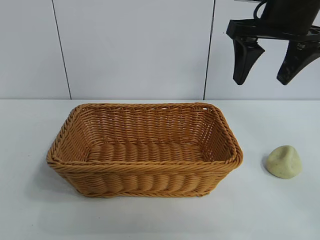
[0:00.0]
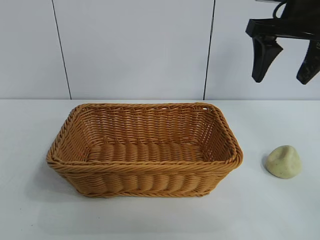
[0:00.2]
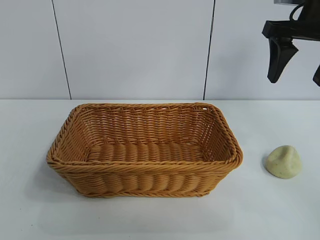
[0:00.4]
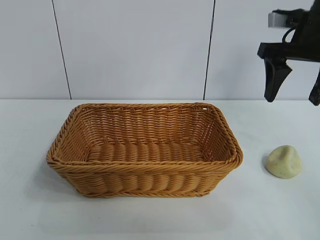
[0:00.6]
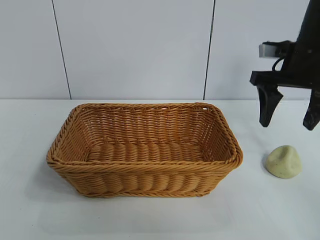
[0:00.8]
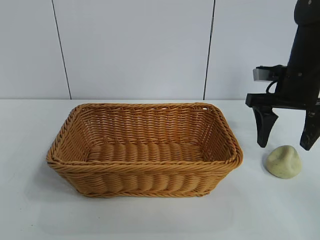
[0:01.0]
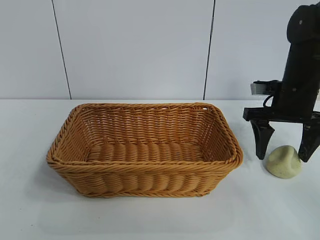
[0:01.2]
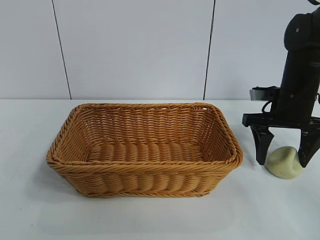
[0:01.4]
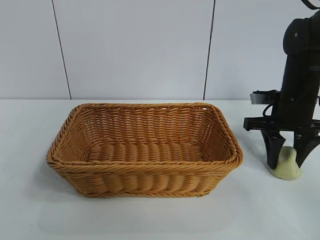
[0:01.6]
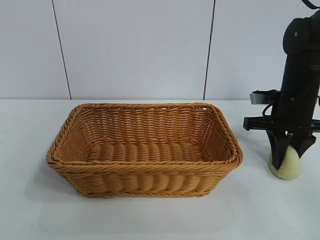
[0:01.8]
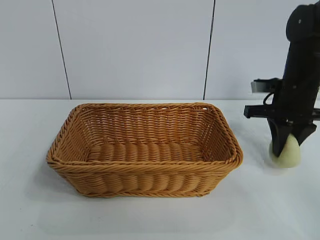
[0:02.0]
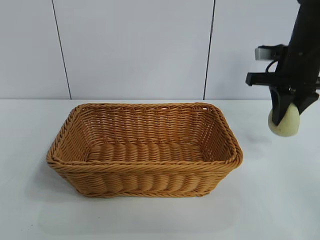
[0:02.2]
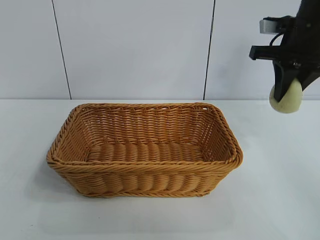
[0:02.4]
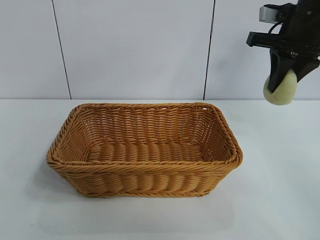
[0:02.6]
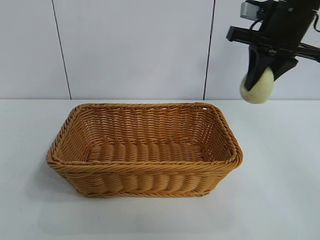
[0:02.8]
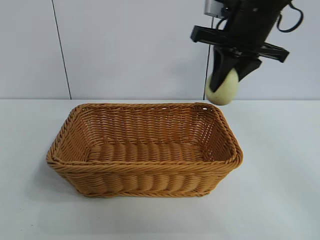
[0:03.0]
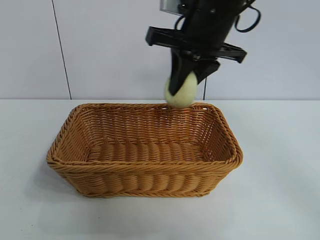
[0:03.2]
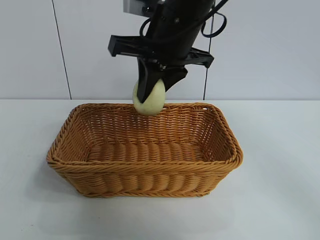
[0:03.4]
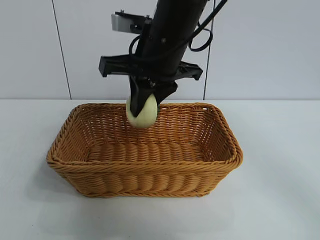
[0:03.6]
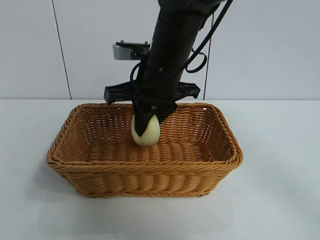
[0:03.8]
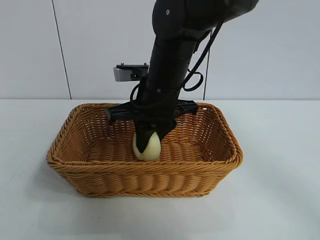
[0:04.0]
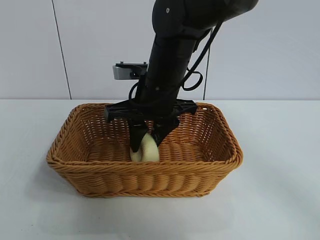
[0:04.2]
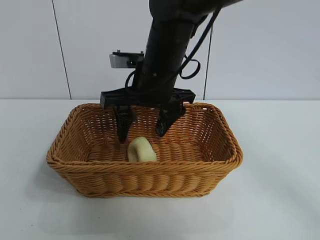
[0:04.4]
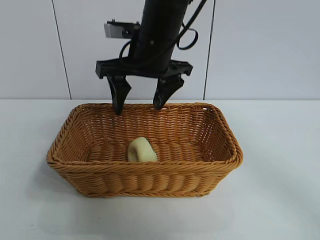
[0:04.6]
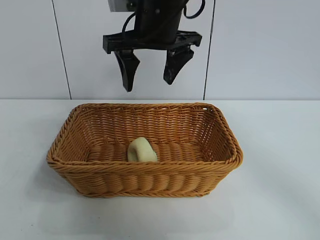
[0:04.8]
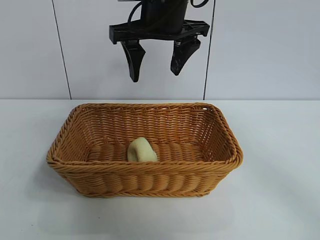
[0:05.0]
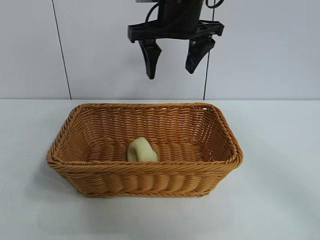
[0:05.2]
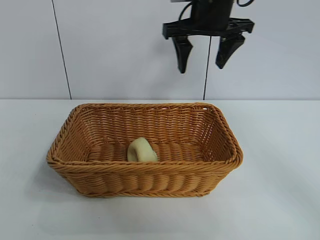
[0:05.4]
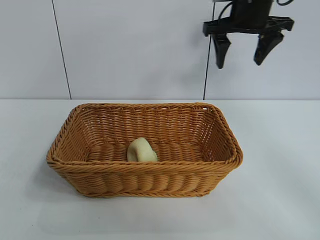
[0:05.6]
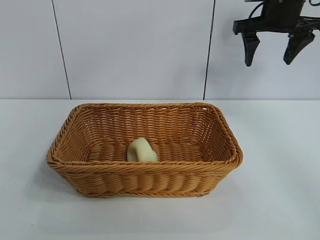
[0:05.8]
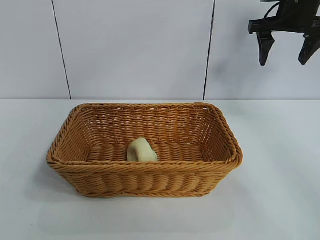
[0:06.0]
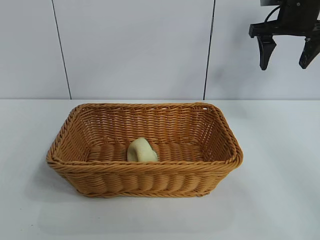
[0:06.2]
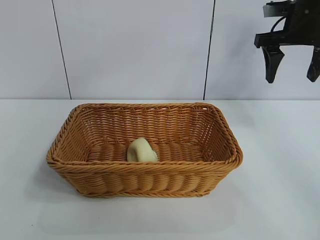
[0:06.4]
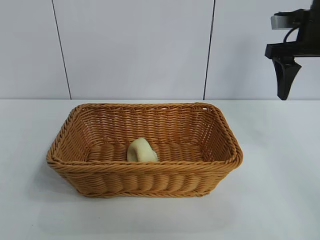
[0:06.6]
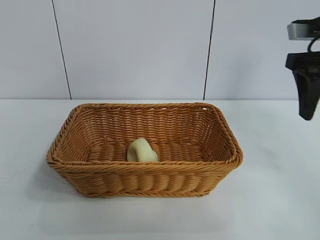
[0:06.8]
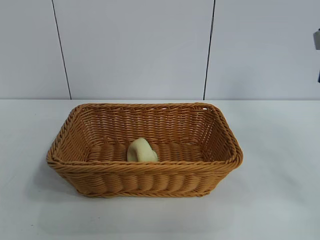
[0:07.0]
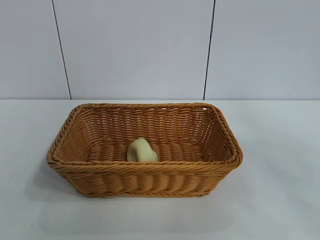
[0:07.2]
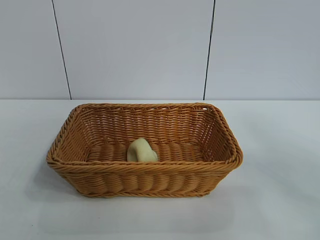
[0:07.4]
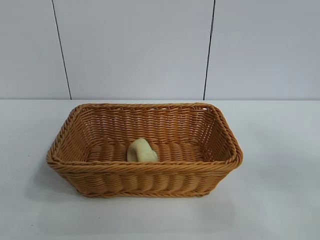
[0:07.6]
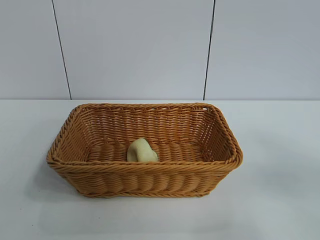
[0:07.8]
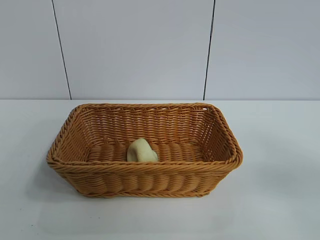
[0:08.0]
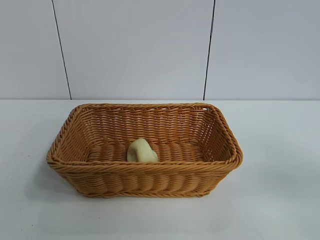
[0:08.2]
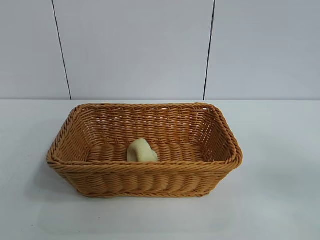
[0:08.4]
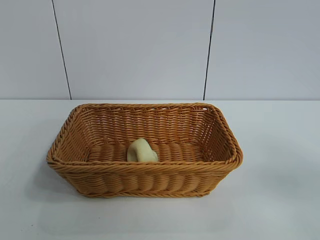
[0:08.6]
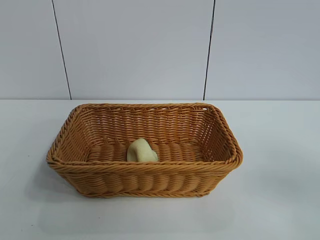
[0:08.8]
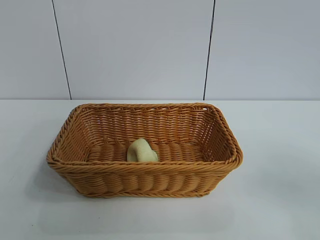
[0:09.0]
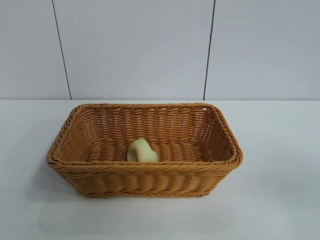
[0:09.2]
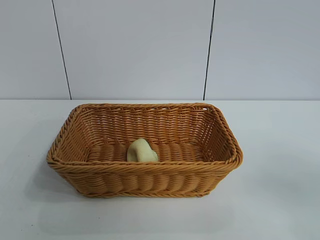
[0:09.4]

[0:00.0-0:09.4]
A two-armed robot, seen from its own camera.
Task of the whole recording: pick up the egg yolk pastry and put it into the basket.
Step, 0:01.8 to 0:04.2: Place the egg yolk pastry in the basket with right gripper.

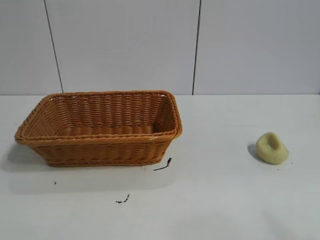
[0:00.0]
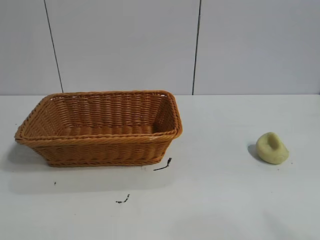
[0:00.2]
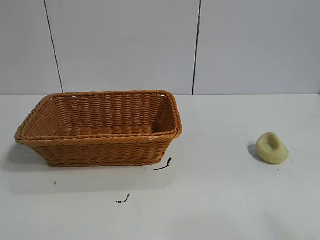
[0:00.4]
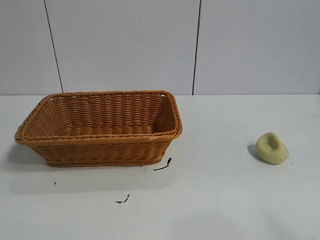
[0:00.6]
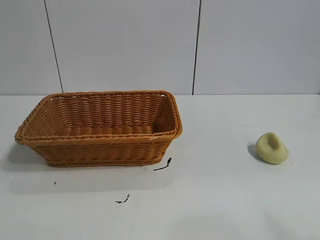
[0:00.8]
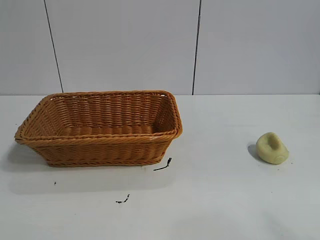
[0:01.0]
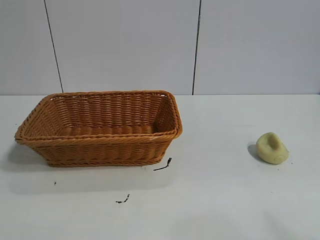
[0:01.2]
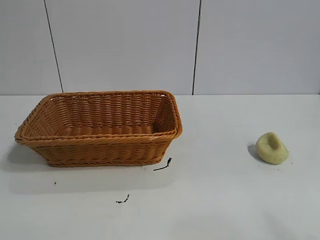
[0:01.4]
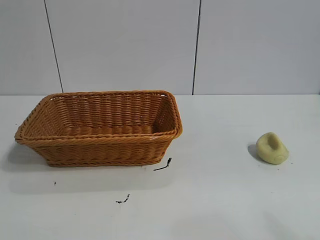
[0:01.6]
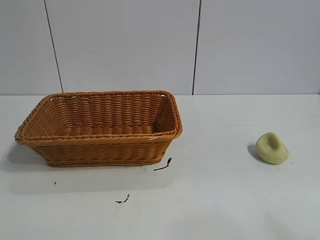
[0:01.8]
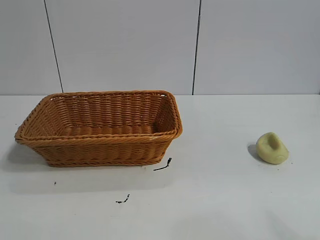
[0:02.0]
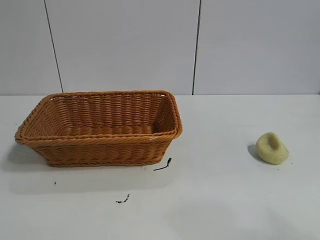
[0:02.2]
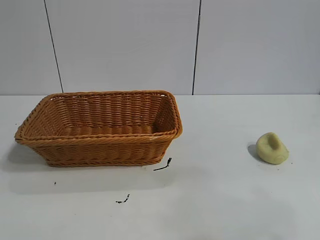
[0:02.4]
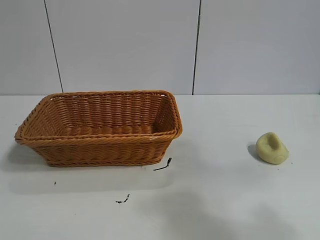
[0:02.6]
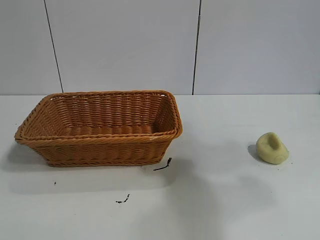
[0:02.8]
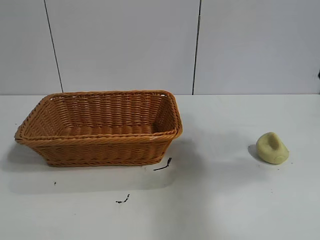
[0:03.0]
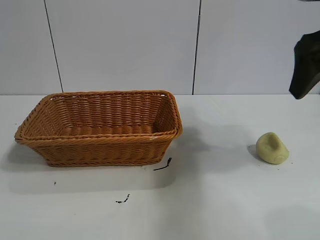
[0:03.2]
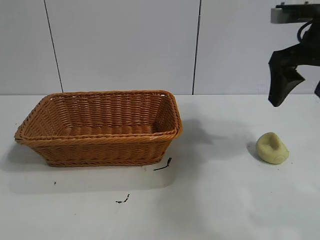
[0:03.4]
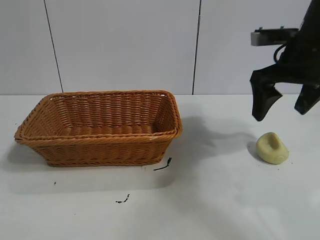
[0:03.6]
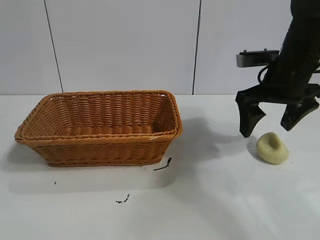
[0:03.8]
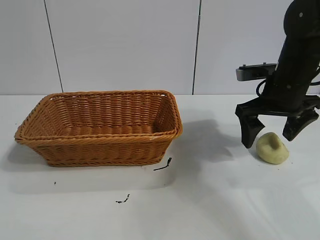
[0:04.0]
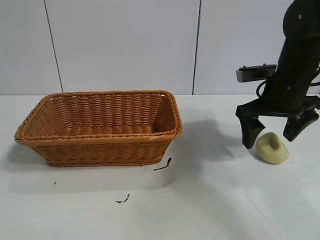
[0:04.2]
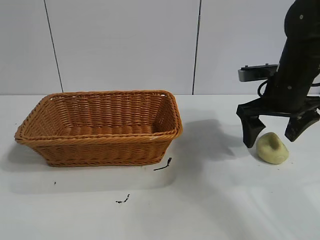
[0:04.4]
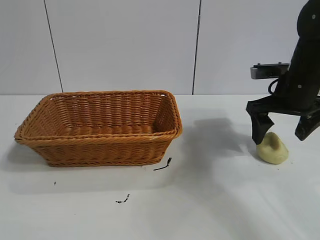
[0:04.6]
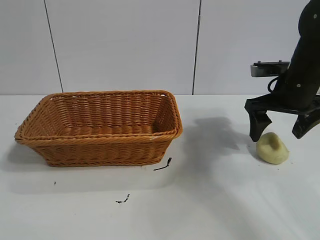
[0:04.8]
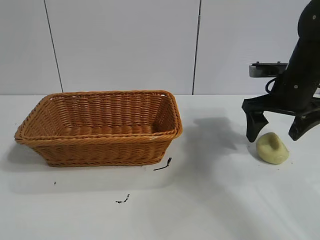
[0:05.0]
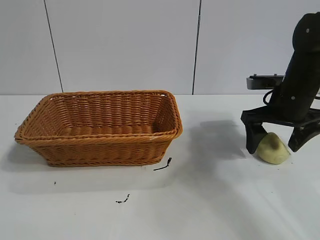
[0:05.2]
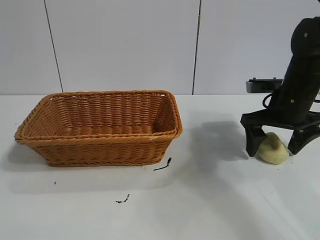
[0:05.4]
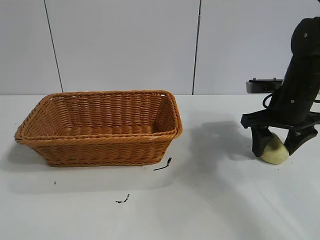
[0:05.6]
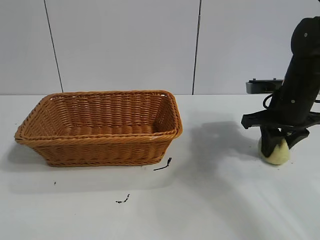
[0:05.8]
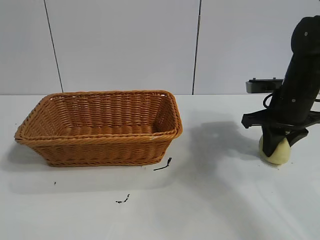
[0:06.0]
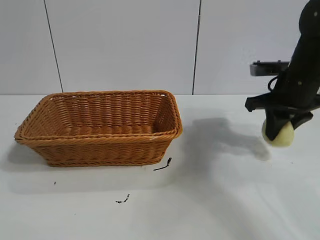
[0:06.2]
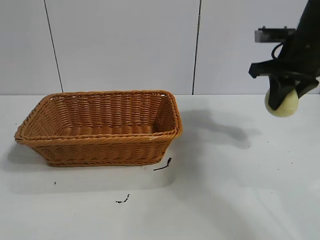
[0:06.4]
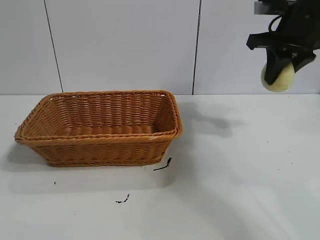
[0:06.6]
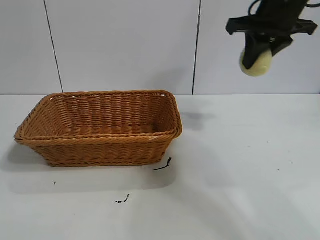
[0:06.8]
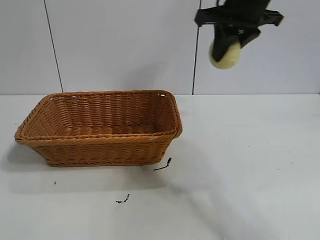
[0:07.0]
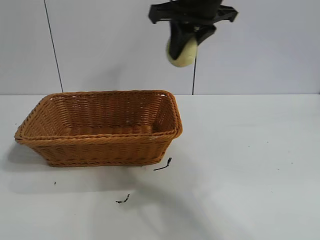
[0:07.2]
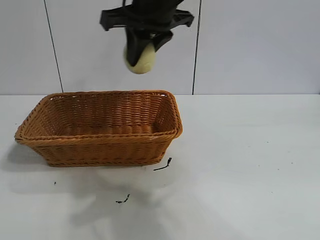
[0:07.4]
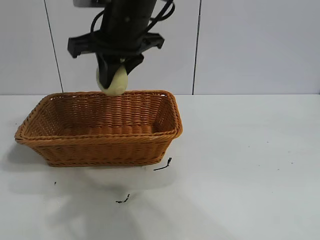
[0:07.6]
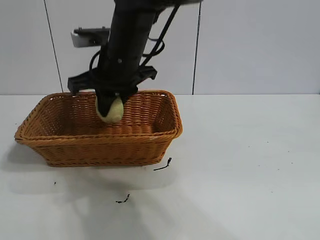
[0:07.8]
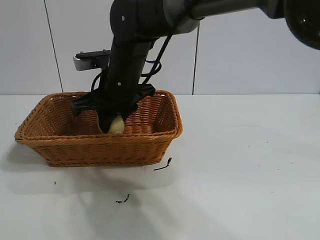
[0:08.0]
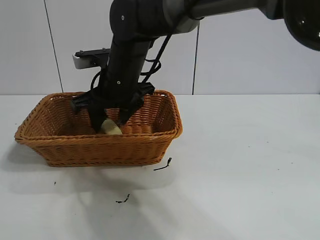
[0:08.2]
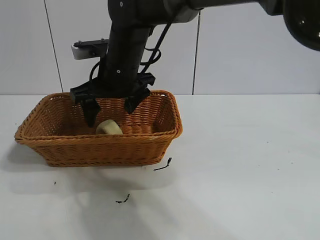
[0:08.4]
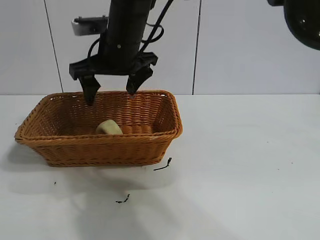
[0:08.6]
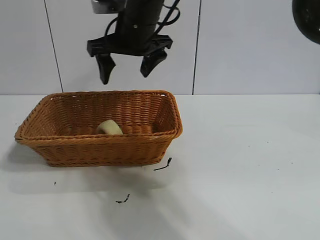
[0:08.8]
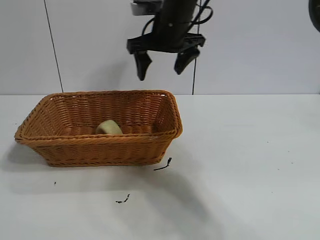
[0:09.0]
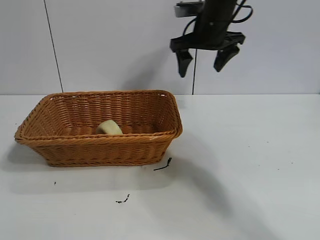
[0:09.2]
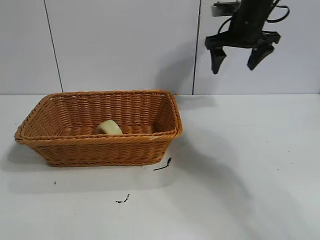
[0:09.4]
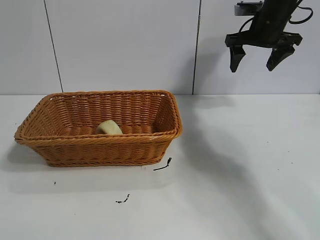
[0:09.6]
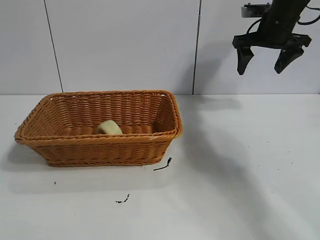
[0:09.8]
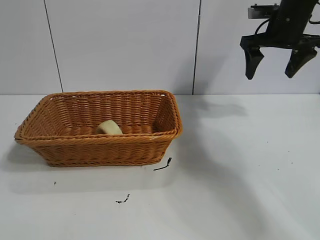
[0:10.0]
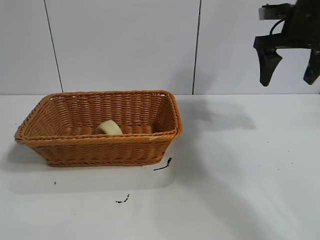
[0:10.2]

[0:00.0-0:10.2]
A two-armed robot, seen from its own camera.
Task of the whole recording: pick up the egg yolk pastry and put it into the basket.
Step, 0:02.0 to 0:05.8: Grasp egg yolk pastry with right gripper.
Step, 0:06.2 to 0:08.2: Place the egg yolk pastry in the basket with right gripper.
